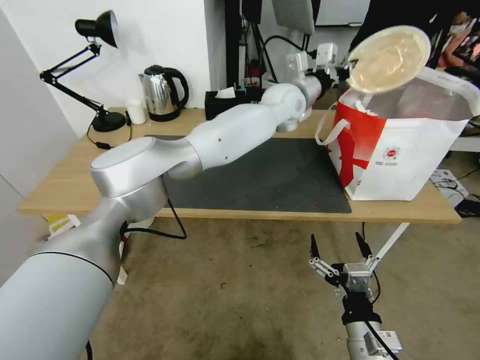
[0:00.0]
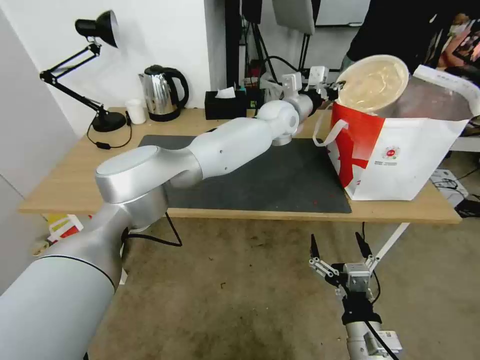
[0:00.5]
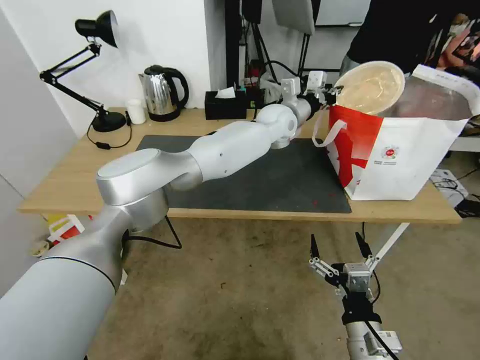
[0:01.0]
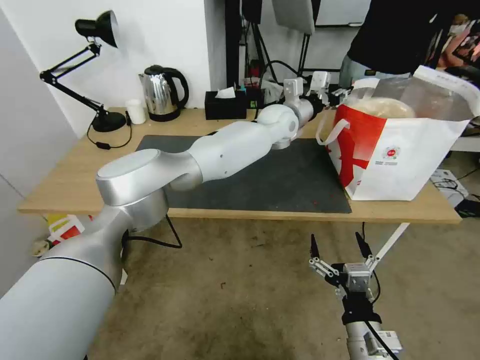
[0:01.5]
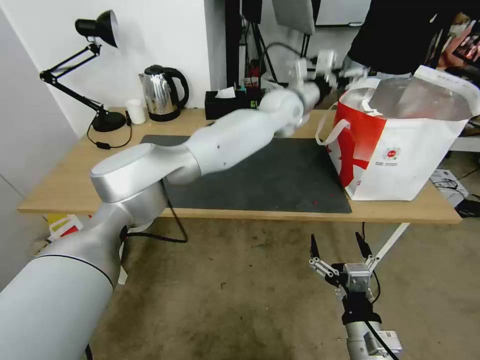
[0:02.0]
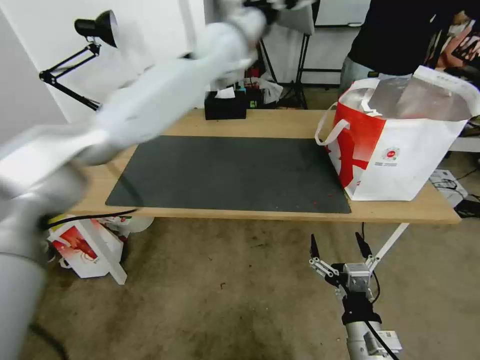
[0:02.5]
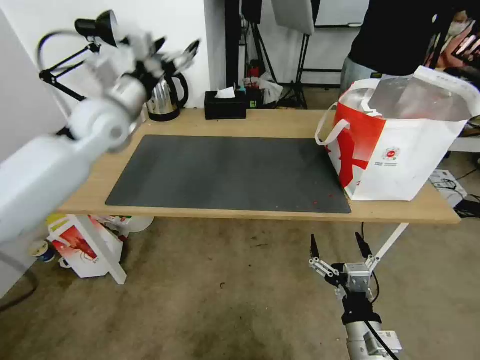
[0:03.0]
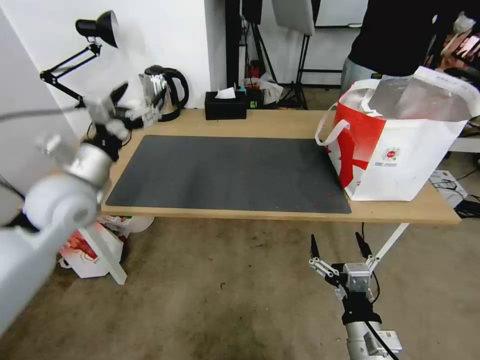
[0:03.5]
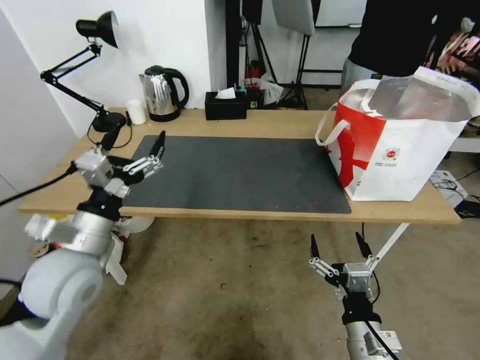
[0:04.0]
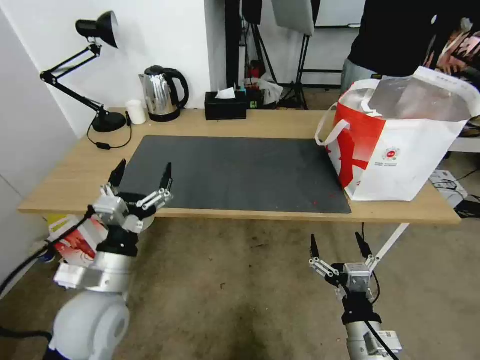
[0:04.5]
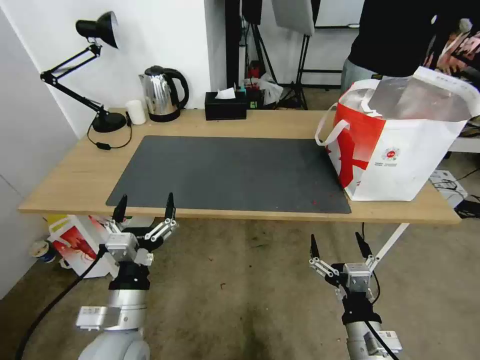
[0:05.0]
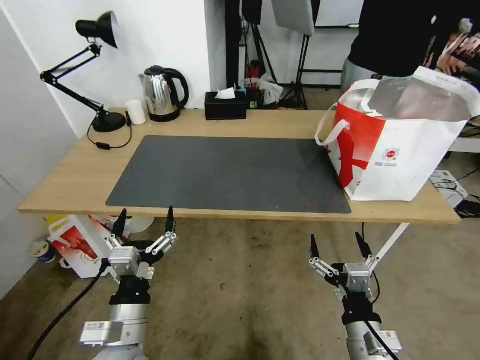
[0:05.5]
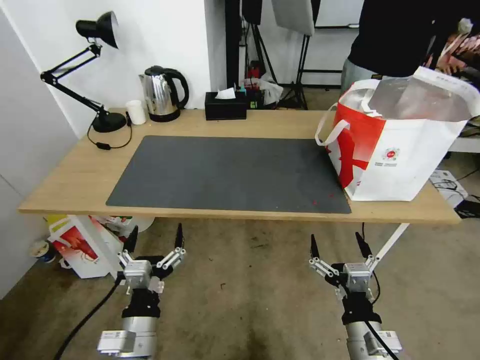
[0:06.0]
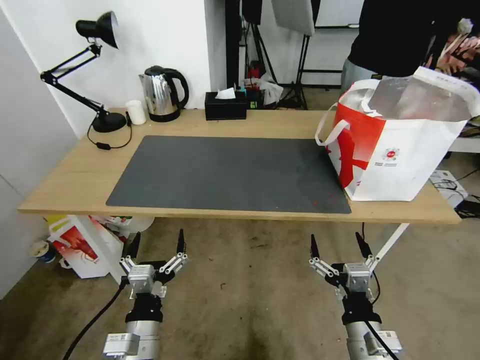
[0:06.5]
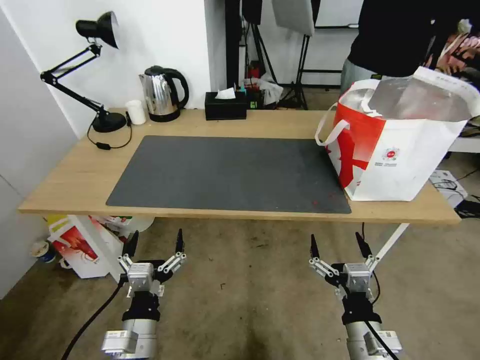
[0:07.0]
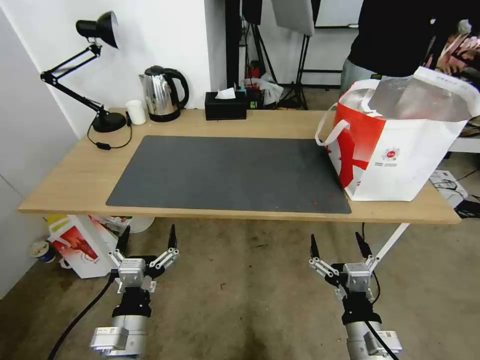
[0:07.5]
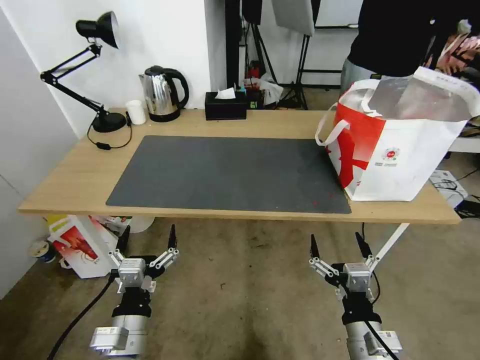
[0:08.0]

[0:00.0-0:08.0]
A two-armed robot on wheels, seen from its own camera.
Task of the whole recording: Pick up the trash from the table and place it into the takeout bag.
0:00.0 to 0:02.0: The left gripper opens.
0:02.0 to 0:04.0: The left gripper shifts approximately 50 cm to the left and backward.
0:04.0 to 0:06.0: The left gripper moves downward, backward and to the right, about 20 cm.
0:06.0 to 0:08.0: The grippers stay close to where they were, moving slightly.
